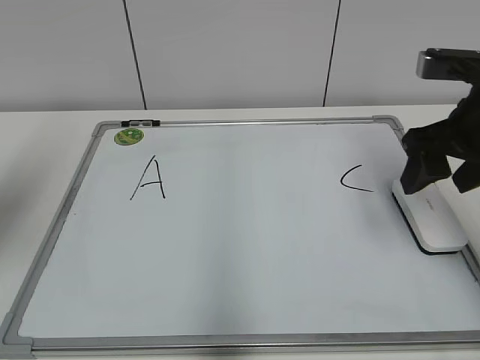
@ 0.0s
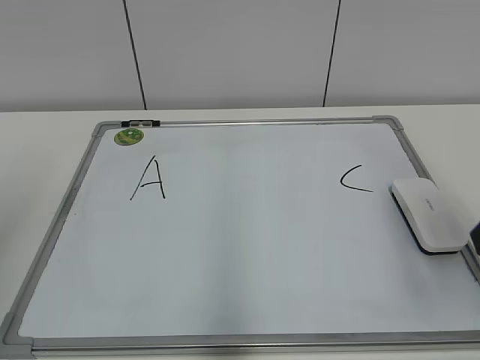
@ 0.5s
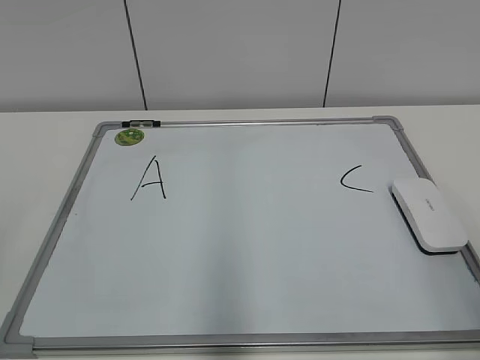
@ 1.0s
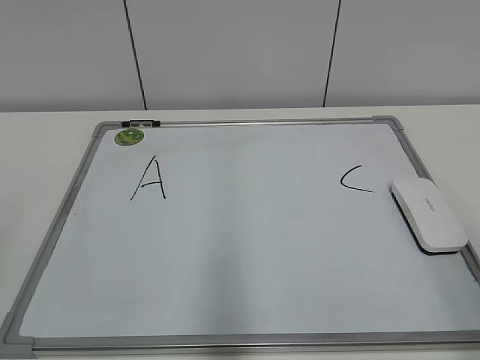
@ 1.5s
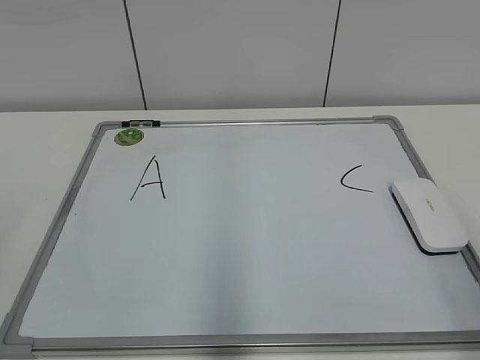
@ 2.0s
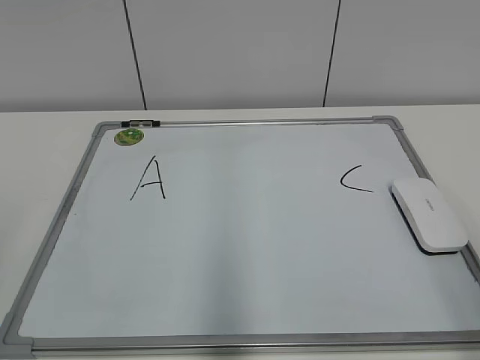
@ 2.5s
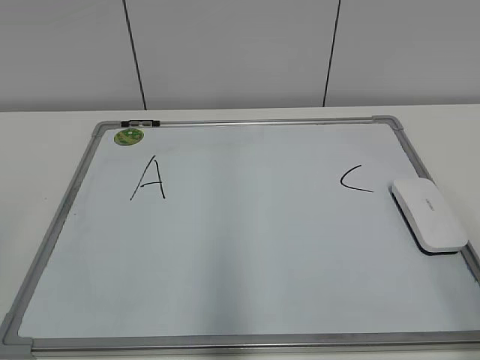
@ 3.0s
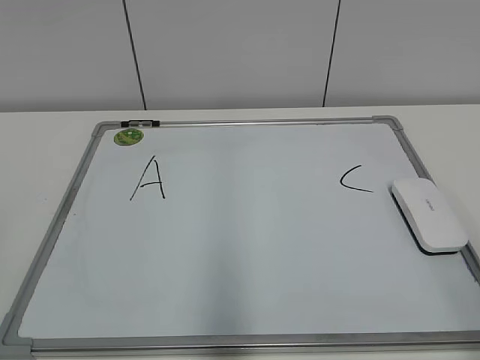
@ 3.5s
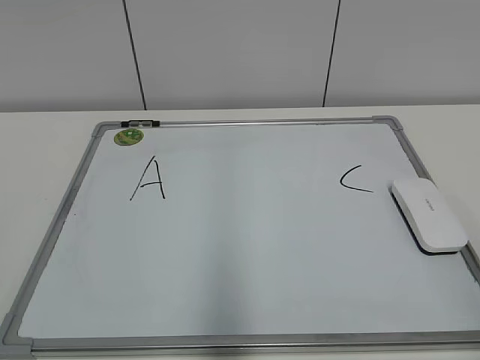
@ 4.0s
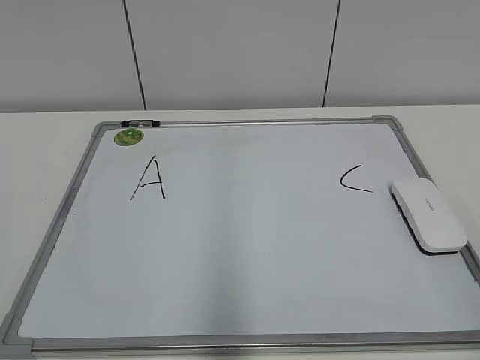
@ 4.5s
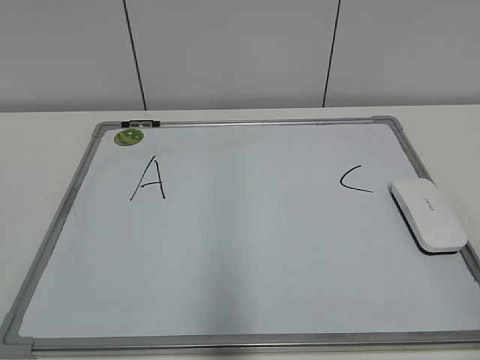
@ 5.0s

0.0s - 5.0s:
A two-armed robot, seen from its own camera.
Task of the whole recording: pick up the eraser on the blackboard and erase the letter "B".
0.0s - 2.5s: The two grippers go roughly 20 cm backward.

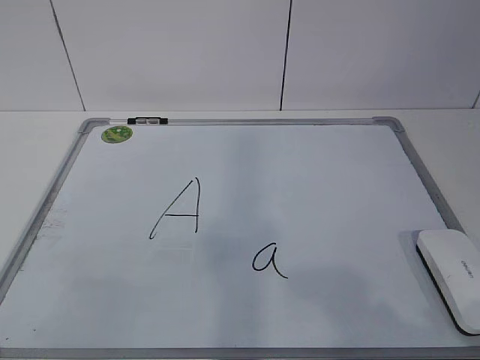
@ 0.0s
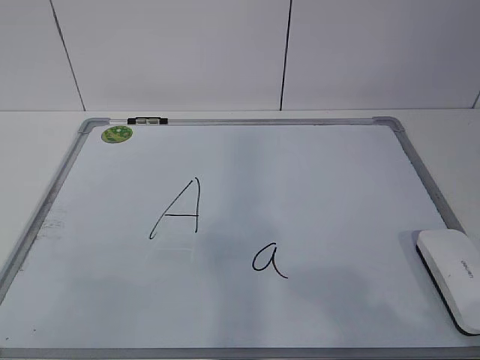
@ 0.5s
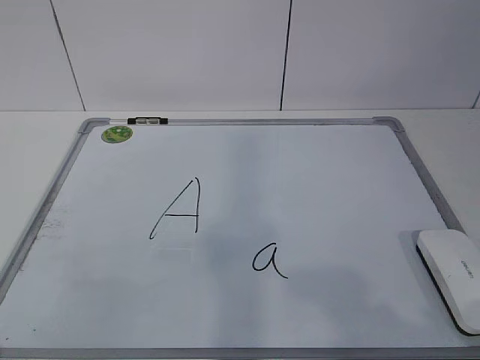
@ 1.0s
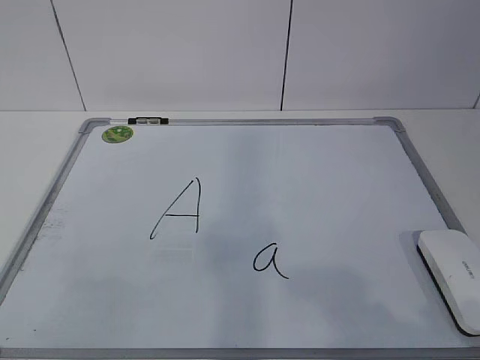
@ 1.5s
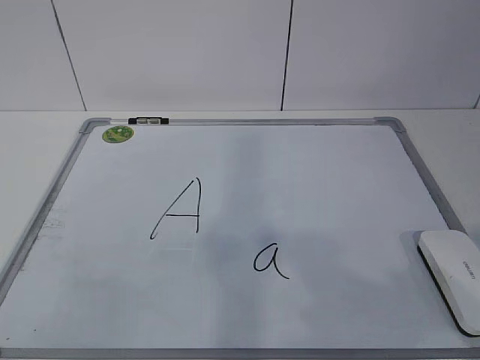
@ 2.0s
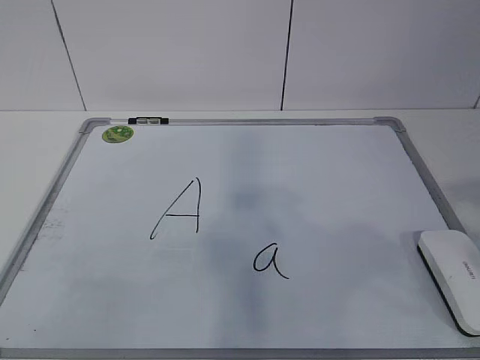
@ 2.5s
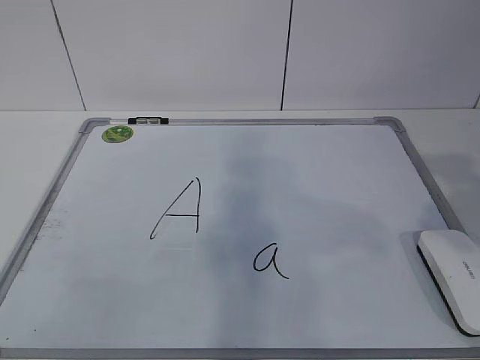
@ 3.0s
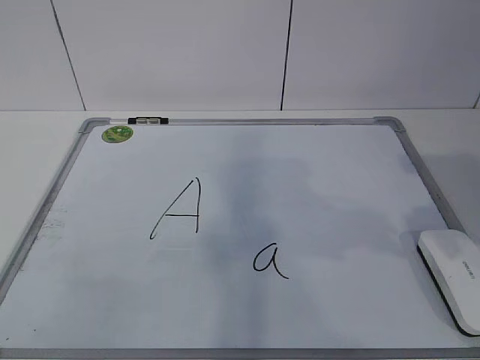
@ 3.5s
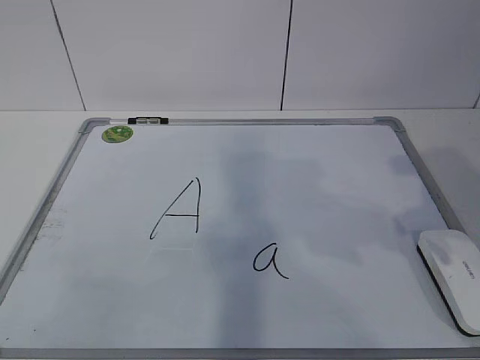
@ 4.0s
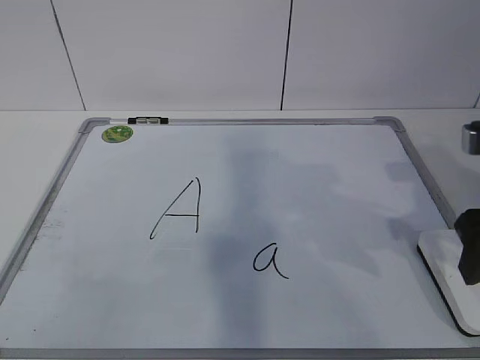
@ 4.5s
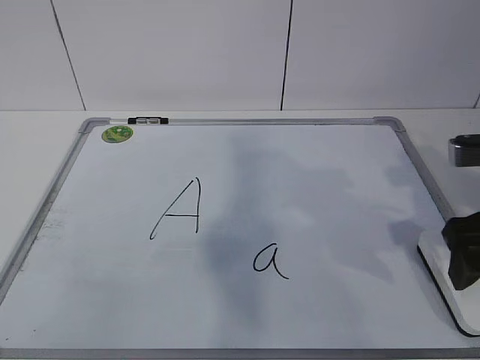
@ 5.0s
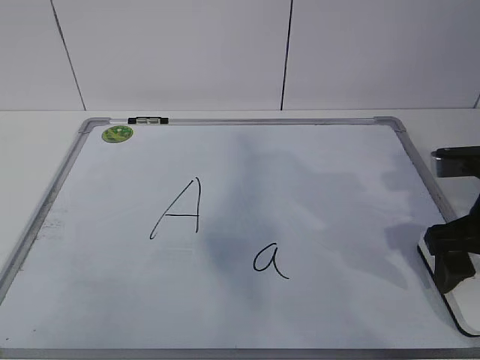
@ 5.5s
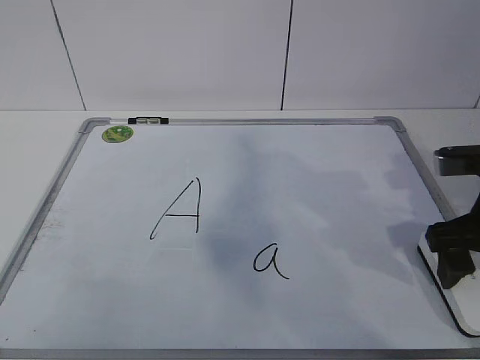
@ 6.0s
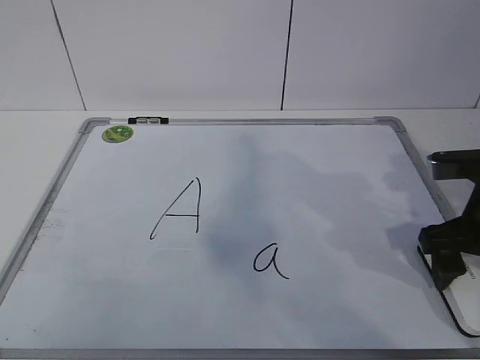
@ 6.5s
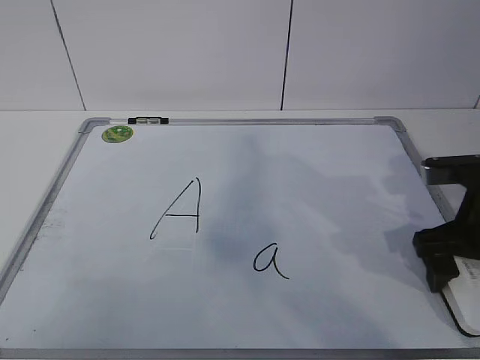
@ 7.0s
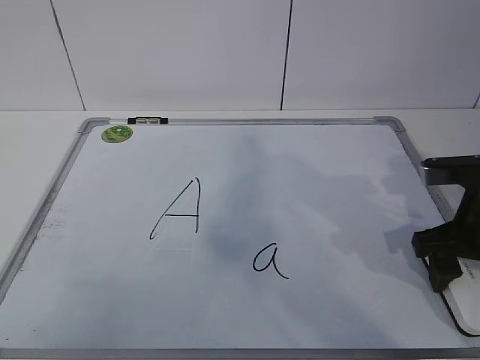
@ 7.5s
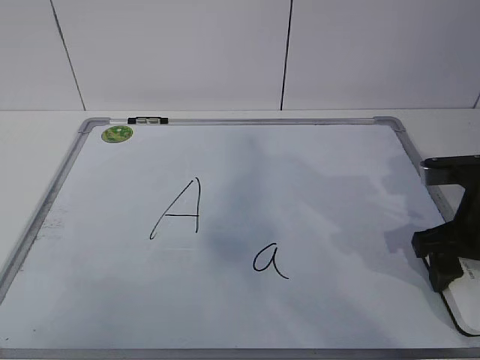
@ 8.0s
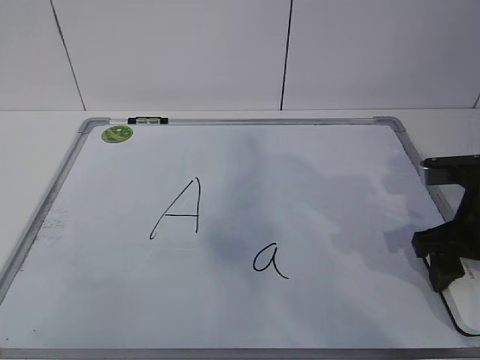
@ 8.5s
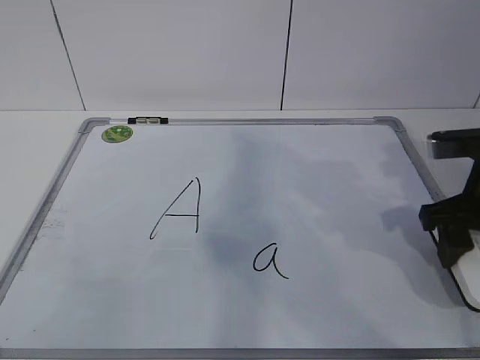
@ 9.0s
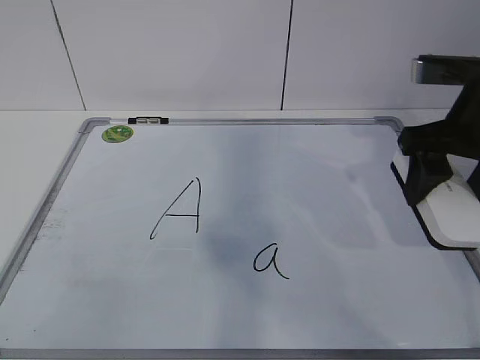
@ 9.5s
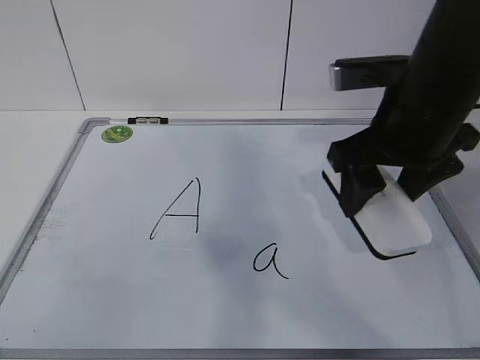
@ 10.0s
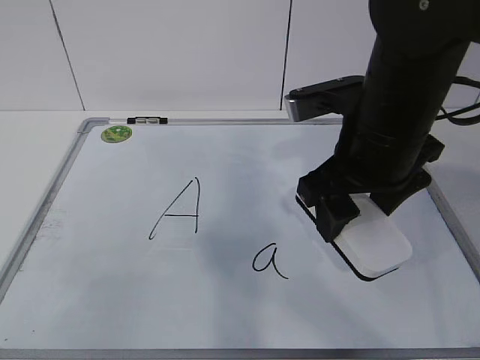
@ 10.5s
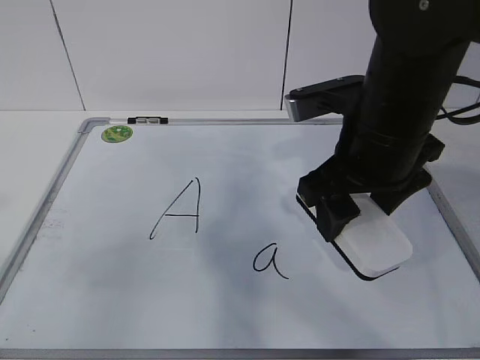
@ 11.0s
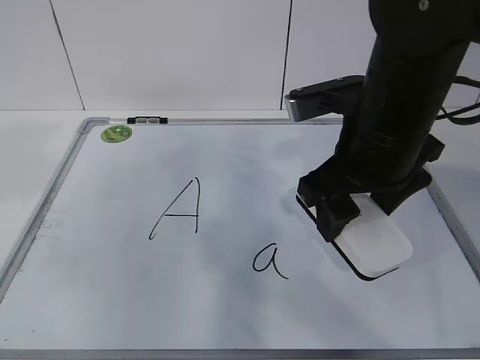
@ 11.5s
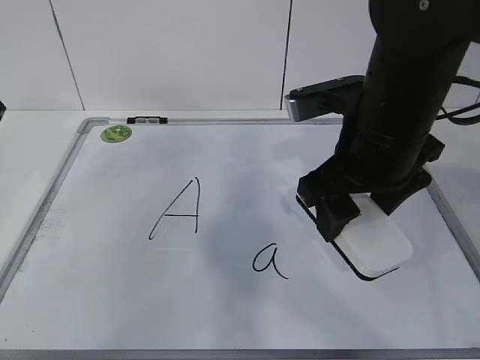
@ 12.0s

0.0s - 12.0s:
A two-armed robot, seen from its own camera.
Task of the whole recording: pick up the eraser on the blackboard and erase the letter "a".
Step, 0.0s - 6.5s: Grab the eraser with your right hand.
Step, 7.0s - 11.0s: Hold the drawing board steady with your left hand.
2.0s - 4.0s: The right gripper is displaced forward by approximately 20 cm.
4.0s - 6.0s: The right gripper moves downward and forward, roughly 10 cm, and opens.
6.0s - 8.0s: The right gripper closes.
8.0s - 10.0s: The right gripper is displaced upward and to the left by roughly 15 cm.
10.0s - 12.0s: The left gripper heads forward, covering approximately 35 cm.

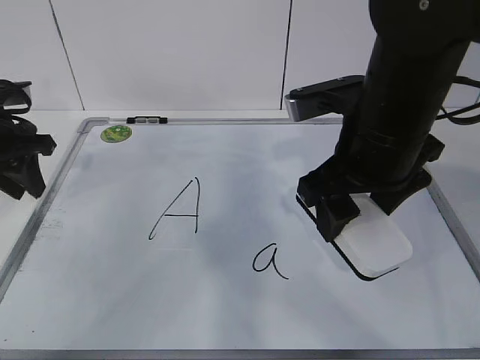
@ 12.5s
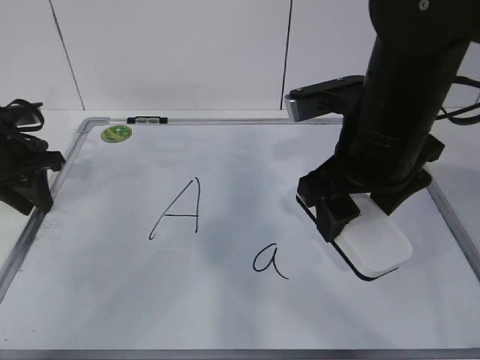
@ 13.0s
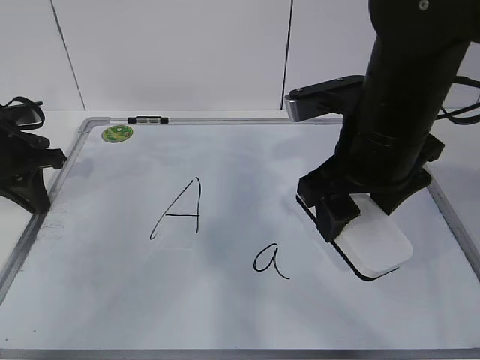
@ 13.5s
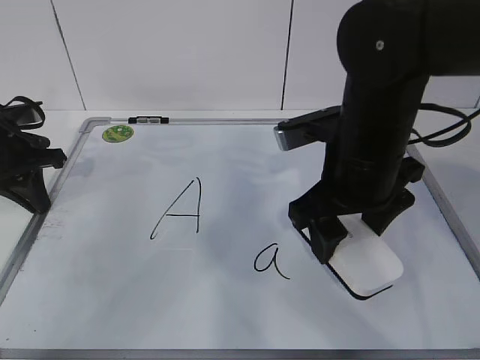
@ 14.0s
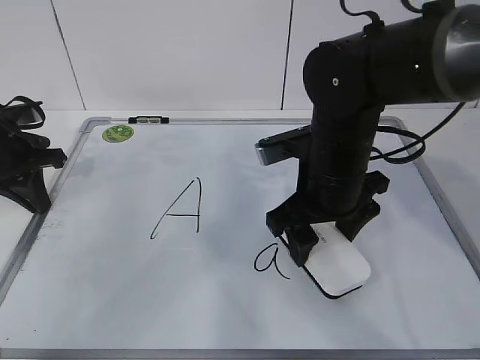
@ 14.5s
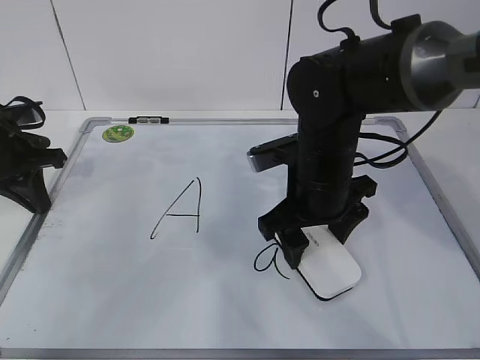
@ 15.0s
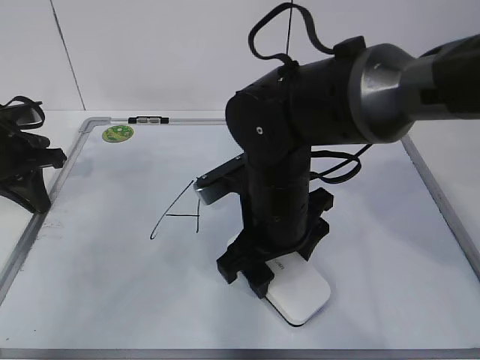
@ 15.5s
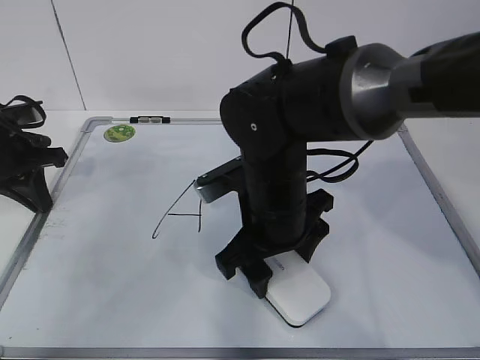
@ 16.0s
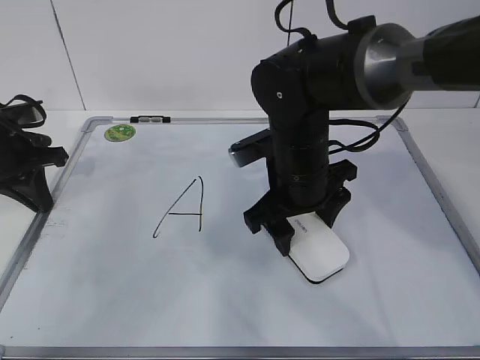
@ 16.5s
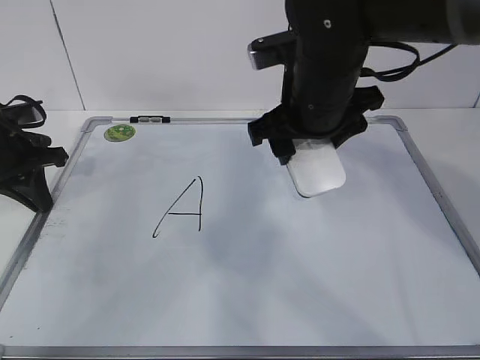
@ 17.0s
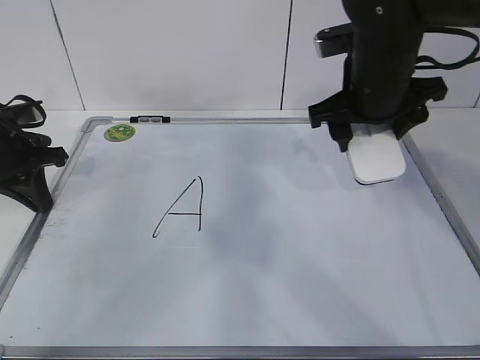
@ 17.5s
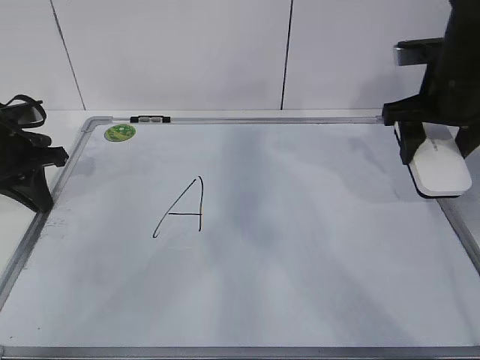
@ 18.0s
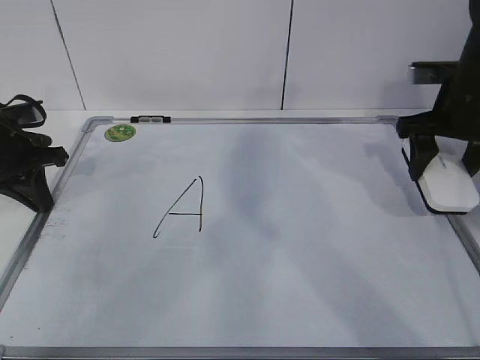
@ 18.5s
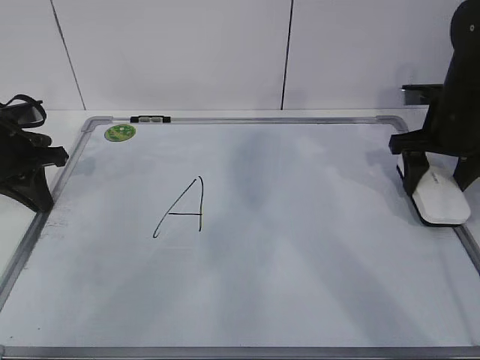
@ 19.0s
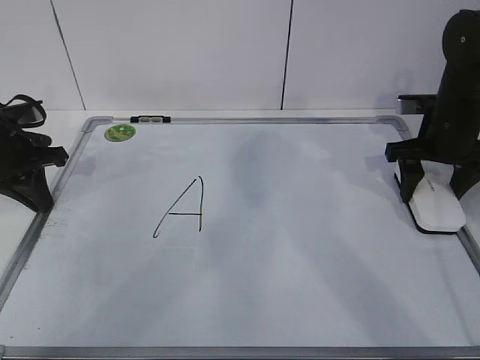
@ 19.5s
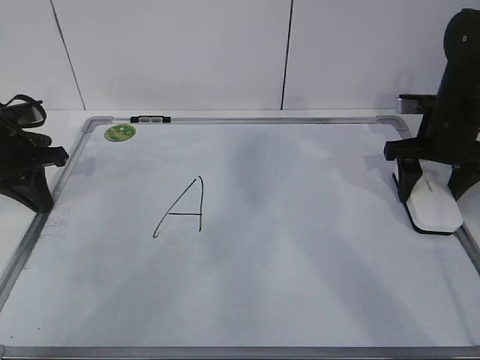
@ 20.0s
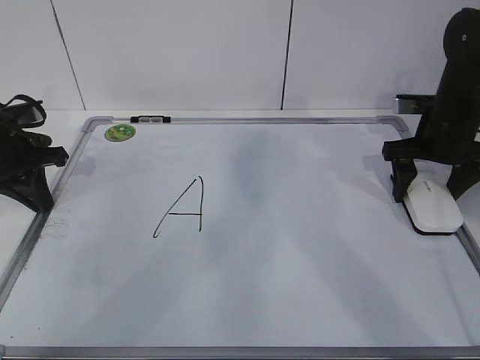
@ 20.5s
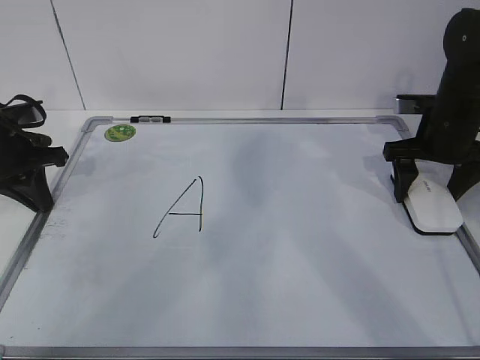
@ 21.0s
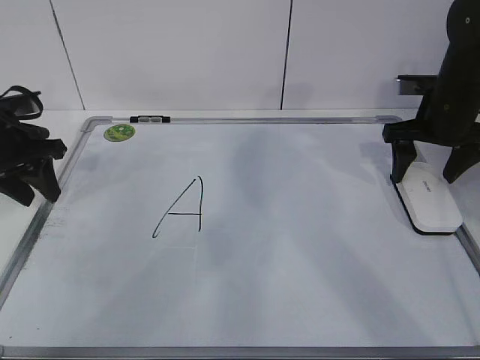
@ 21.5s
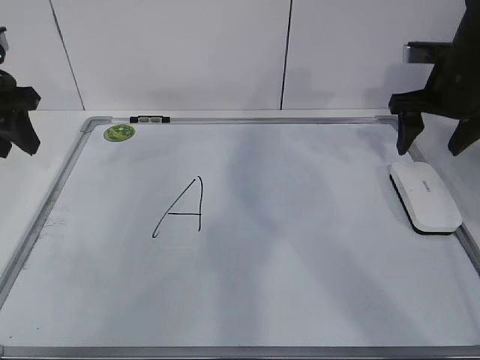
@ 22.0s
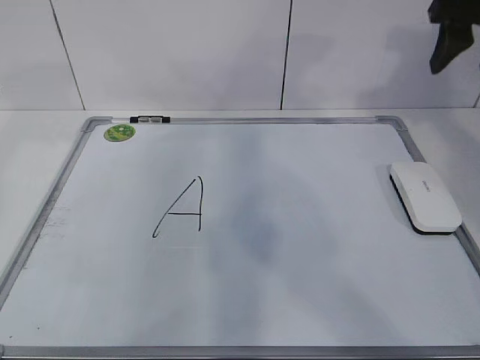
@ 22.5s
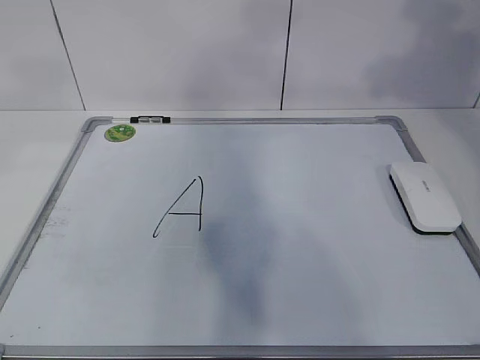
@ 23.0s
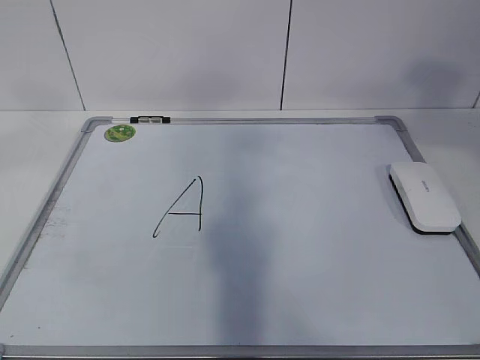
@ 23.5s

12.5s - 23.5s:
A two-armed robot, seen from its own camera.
Task of the whole recording: pick up the eraser on the blackboard and erase the letter "a".
Step, 14.0s - 16.5s: Put down the eraser with your right hand.
12.5s - 14.5s: The left gripper closes its fingers. The right gripper travels downward by some 5 cm.
14.5s - 16.0s: The right gripper travels to the left by approximately 5 cm.
16.0s - 18.0s: The right gripper heads to the right and forward, covering approximately 20 cm.
18.0s - 20.0s: The right gripper shifts some 5 cm downward.
20.0s - 21.5s: The right gripper opens up; the left gripper opens its fingers.
21.5s - 23.5s: The grippers both shift upward and backward by approximately 40 cm. The right gripper closes its fingers.
